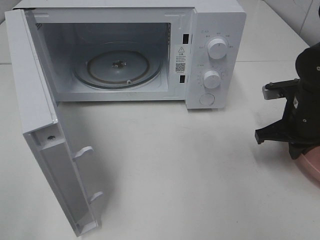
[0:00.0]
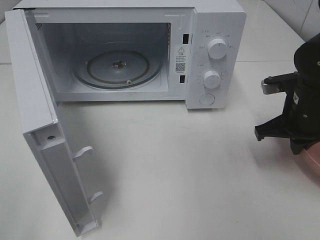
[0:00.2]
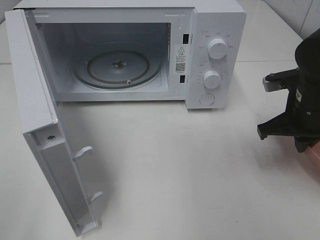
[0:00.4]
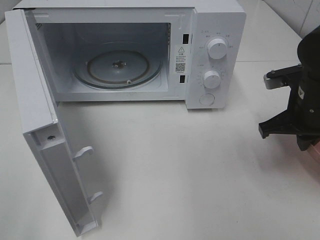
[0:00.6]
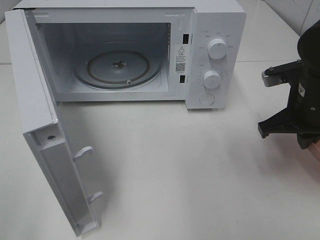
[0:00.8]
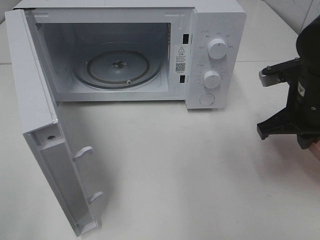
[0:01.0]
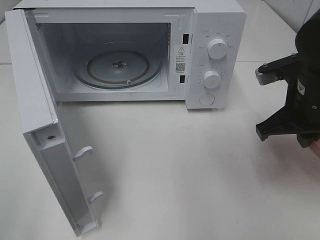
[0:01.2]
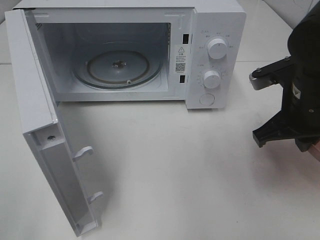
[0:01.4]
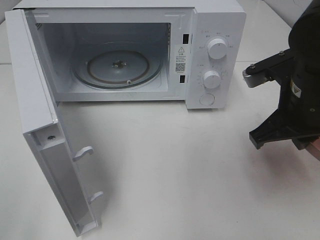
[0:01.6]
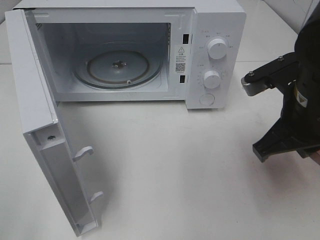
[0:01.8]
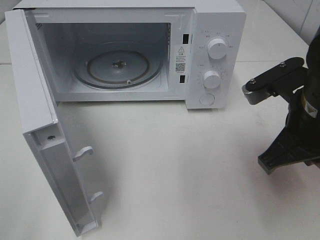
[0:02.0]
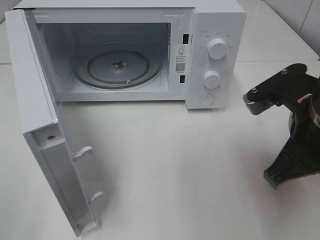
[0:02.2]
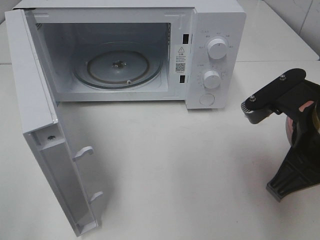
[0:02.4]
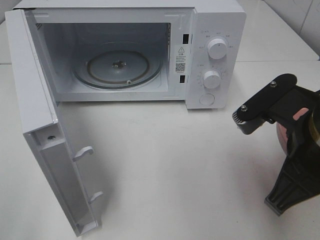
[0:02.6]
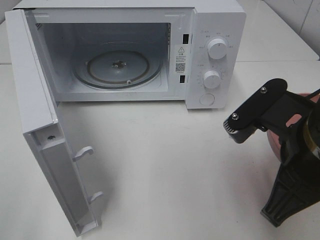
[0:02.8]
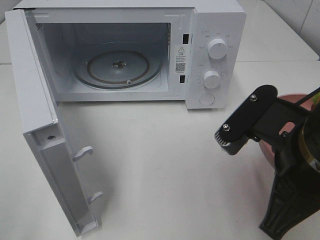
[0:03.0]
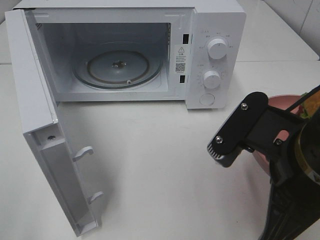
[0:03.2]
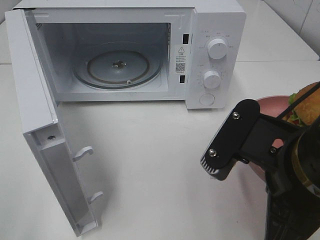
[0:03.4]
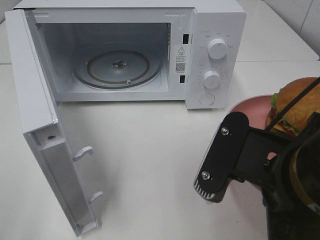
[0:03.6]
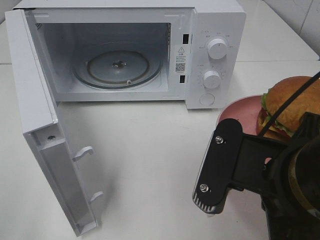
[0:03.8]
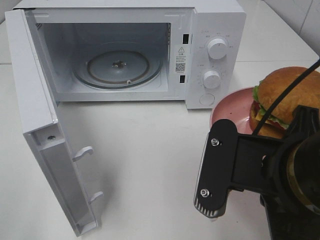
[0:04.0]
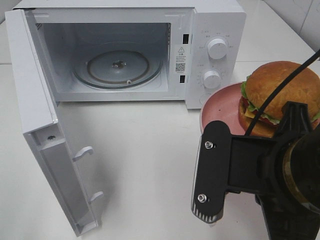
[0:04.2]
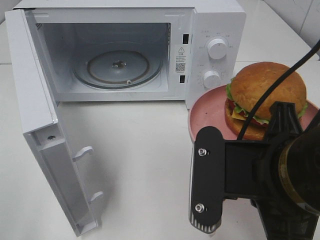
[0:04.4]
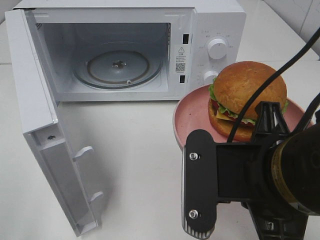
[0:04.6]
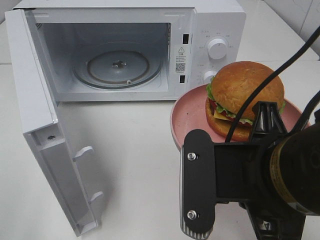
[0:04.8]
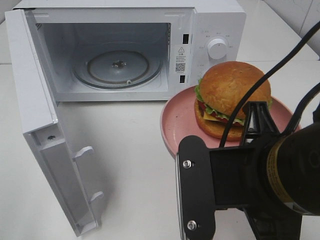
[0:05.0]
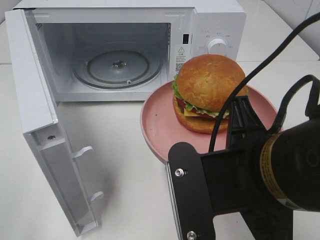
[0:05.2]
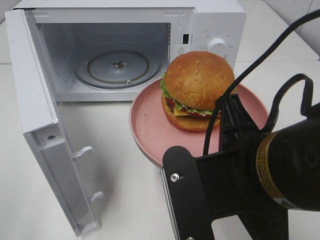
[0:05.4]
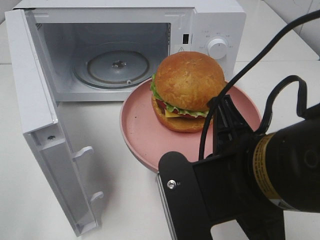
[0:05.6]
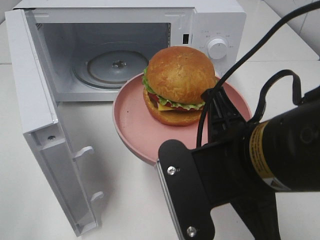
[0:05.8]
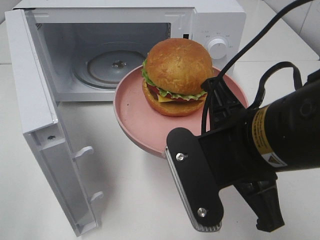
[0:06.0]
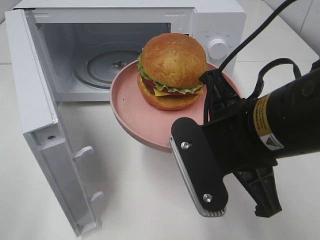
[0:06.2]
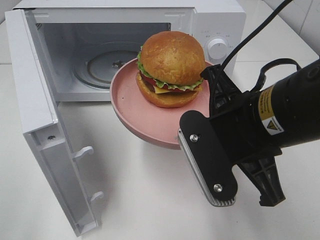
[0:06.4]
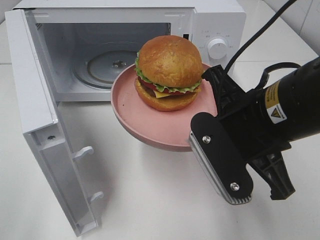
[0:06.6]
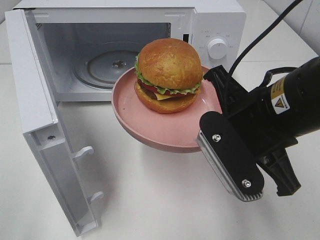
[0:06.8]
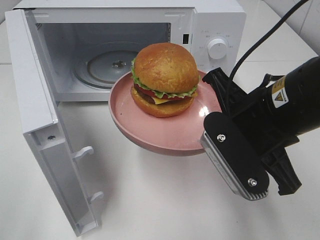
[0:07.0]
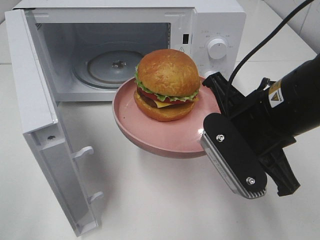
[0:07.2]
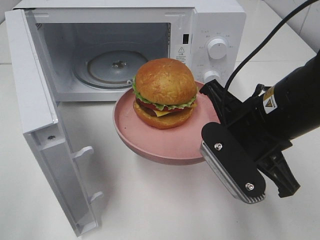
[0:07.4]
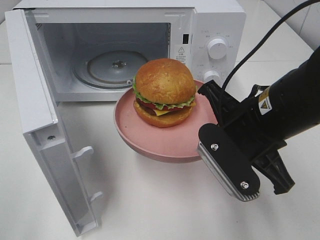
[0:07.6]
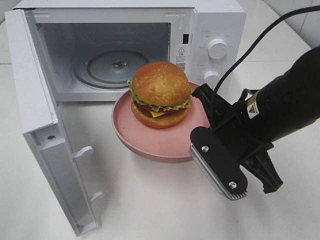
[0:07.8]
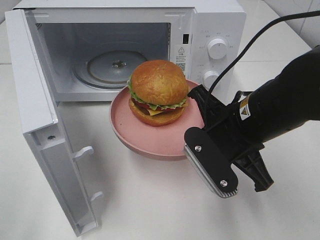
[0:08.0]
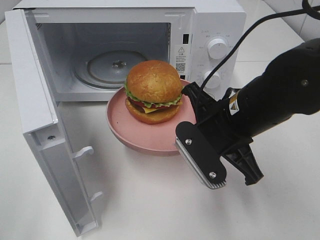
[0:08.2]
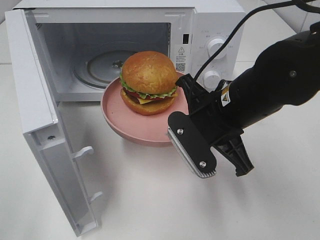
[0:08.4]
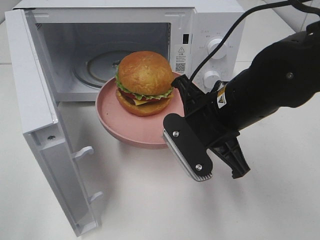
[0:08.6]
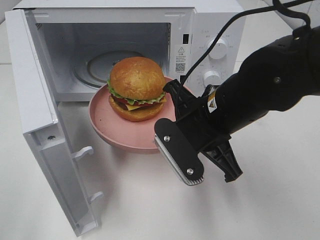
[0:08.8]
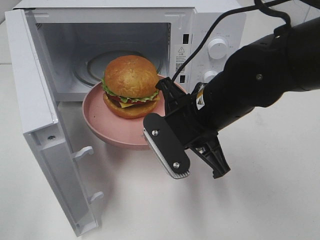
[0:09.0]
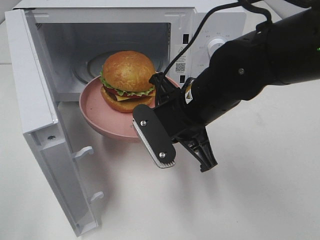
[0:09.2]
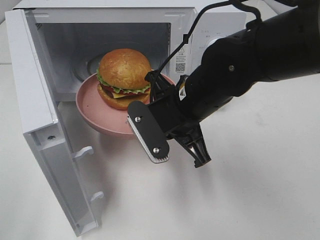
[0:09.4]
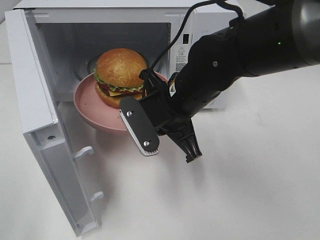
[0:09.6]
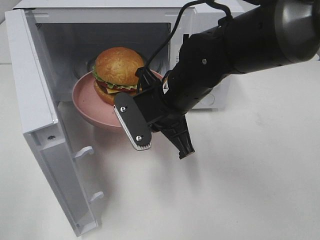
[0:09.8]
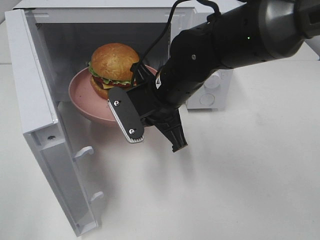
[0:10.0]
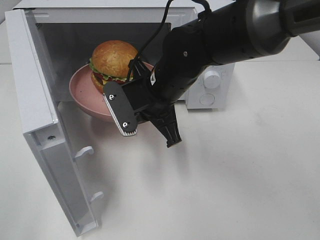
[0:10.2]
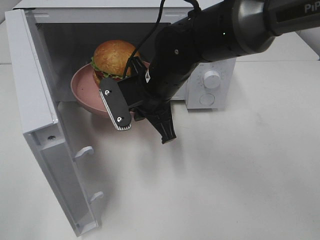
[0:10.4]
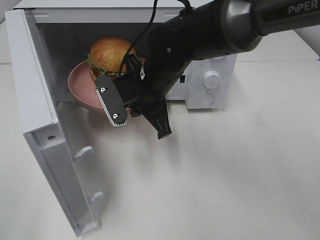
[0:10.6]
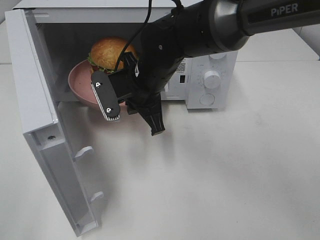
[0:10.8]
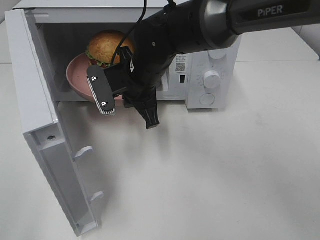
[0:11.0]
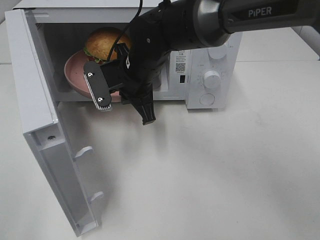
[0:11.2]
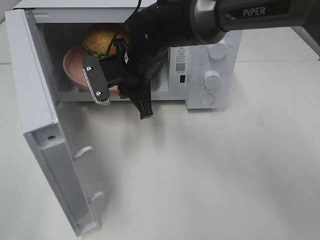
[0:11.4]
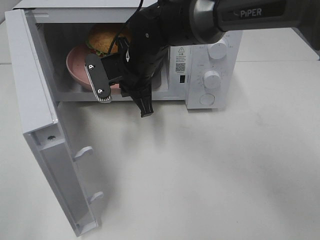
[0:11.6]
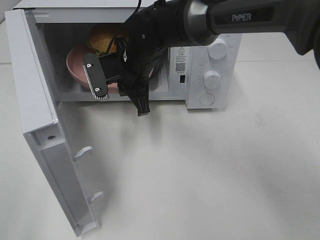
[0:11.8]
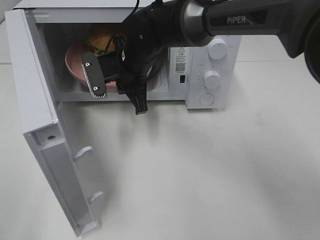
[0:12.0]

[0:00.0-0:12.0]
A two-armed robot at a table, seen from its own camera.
Task of the whole recording: Heat the burger.
0:00.0 to 0:01.6: The right gripper is displaced upward, to the left and backward by approximately 15 cm.
0:01.6 to 0:03.0: The right gripper goes about 10 cm backward.
0:06.0 to 0:07.6: The right gripper goes approximately 5 cm forward.
0:07.6 to 0:09.0: The right gripper shifts roughly 5 cm to the left.
0:09.0 to 0:10.4: The right gripper moves forward and to the left, some 10 cm.
0:10.4 to 0:12.0: The right gripper travels forward by approximately 5 cm.

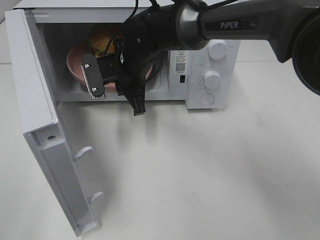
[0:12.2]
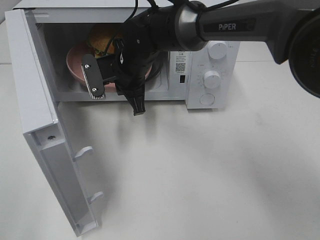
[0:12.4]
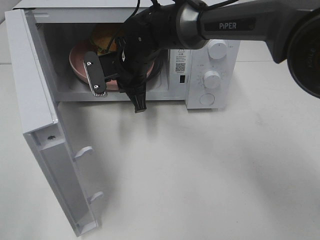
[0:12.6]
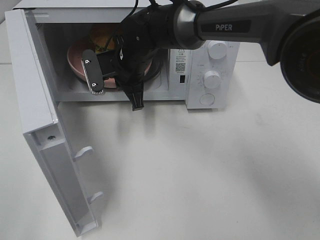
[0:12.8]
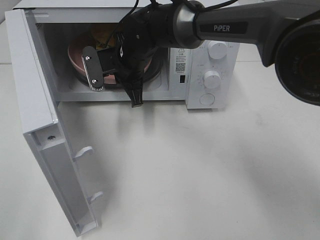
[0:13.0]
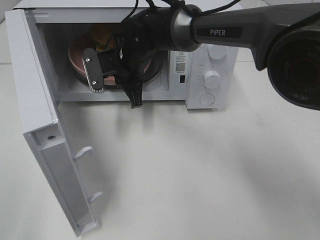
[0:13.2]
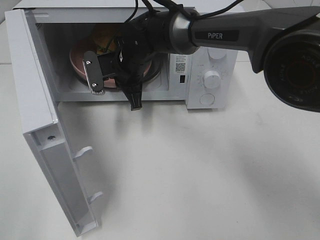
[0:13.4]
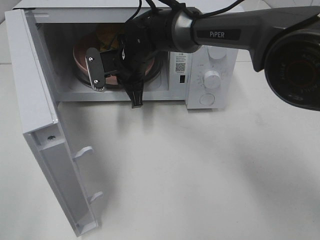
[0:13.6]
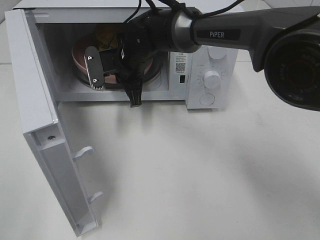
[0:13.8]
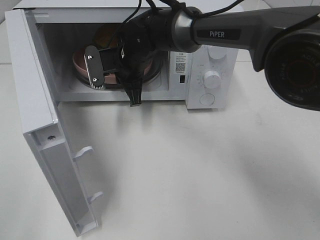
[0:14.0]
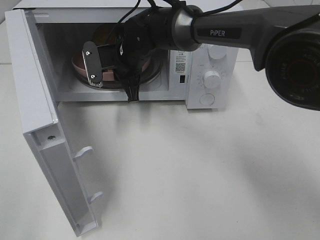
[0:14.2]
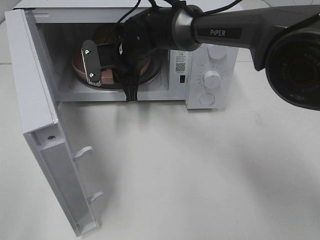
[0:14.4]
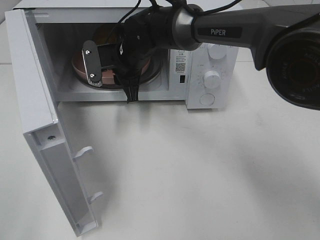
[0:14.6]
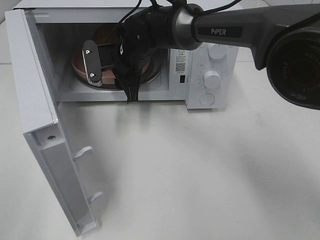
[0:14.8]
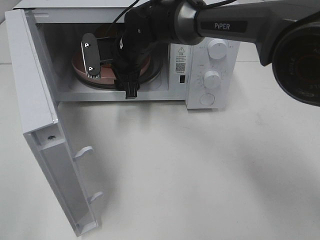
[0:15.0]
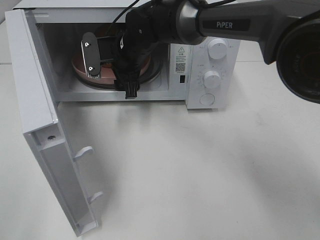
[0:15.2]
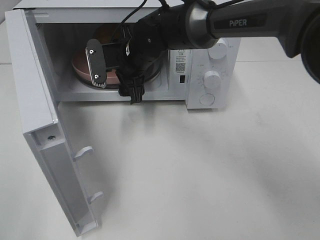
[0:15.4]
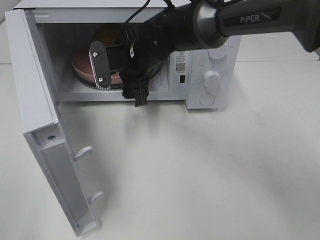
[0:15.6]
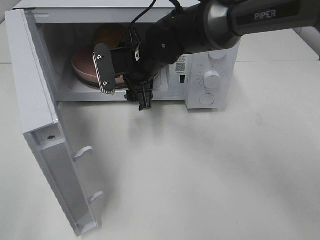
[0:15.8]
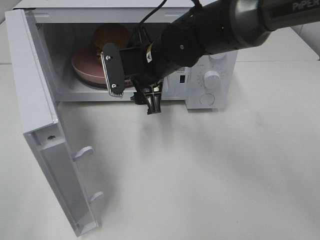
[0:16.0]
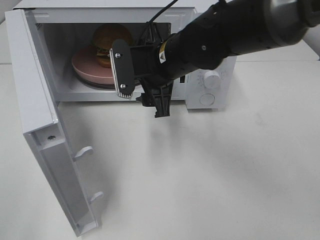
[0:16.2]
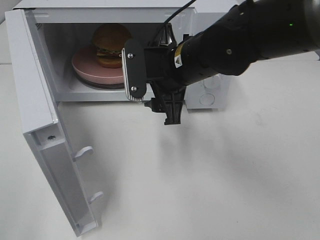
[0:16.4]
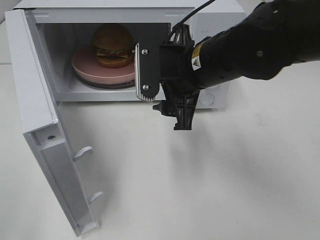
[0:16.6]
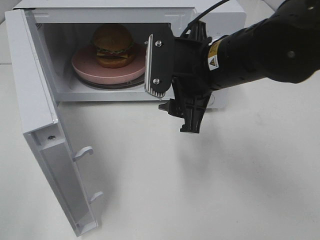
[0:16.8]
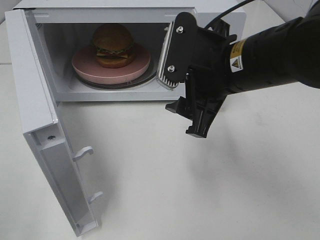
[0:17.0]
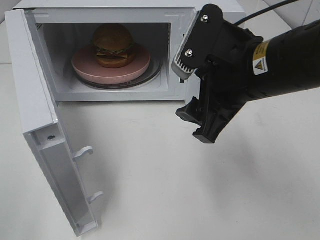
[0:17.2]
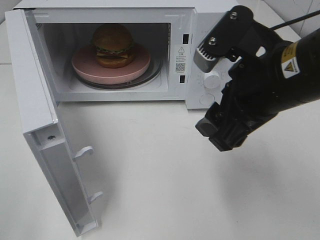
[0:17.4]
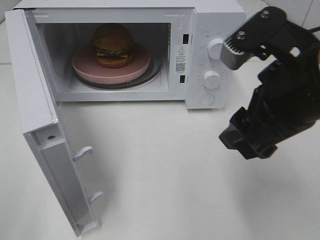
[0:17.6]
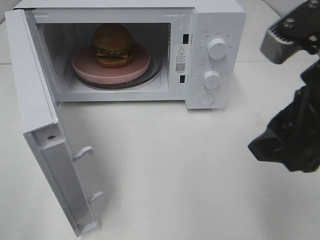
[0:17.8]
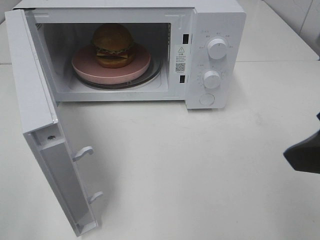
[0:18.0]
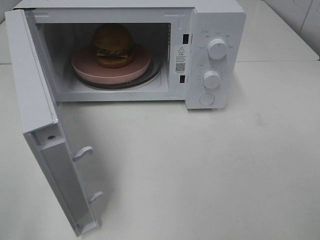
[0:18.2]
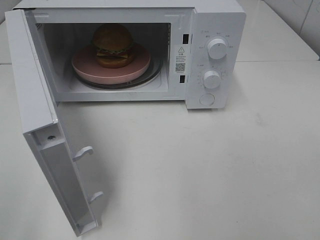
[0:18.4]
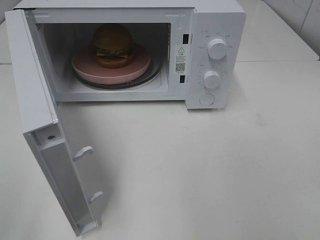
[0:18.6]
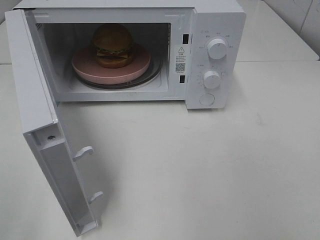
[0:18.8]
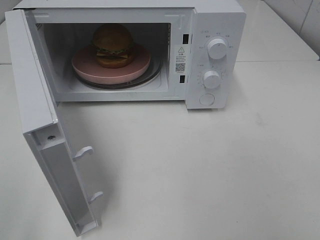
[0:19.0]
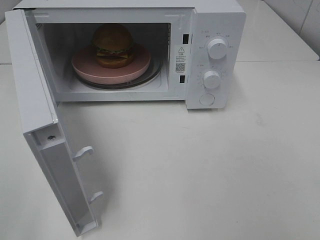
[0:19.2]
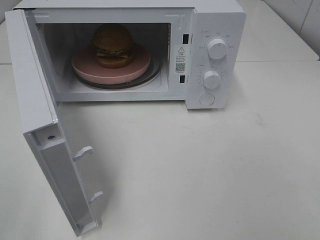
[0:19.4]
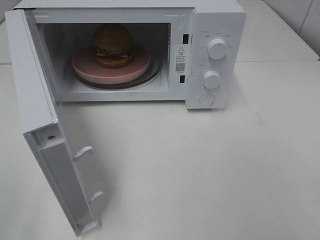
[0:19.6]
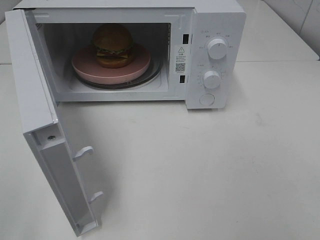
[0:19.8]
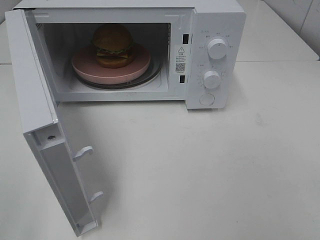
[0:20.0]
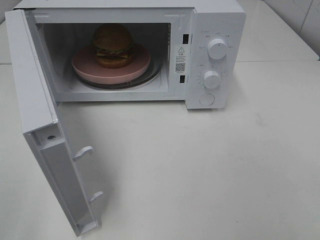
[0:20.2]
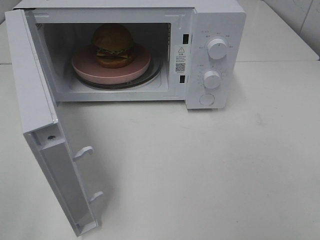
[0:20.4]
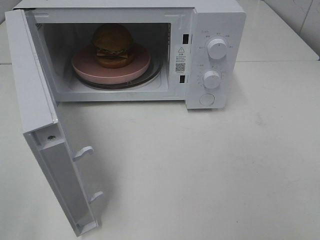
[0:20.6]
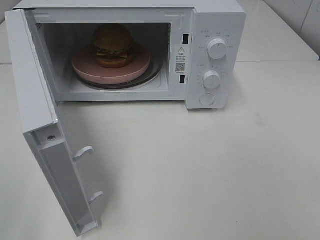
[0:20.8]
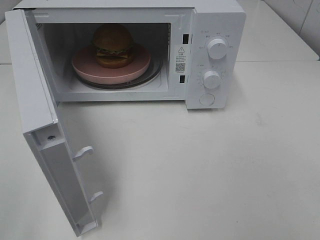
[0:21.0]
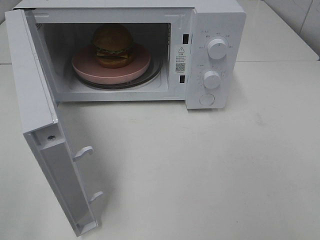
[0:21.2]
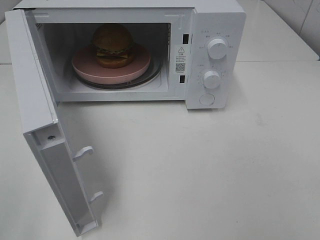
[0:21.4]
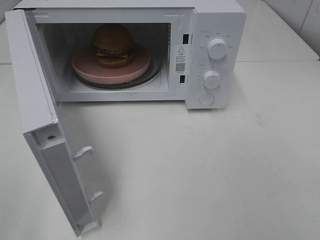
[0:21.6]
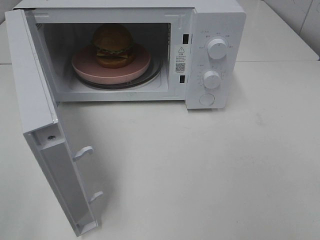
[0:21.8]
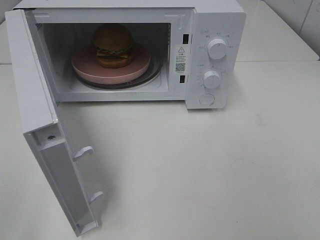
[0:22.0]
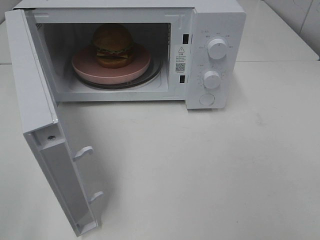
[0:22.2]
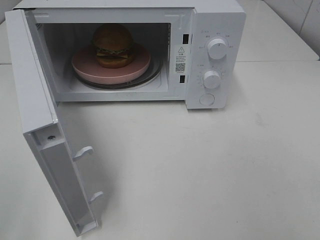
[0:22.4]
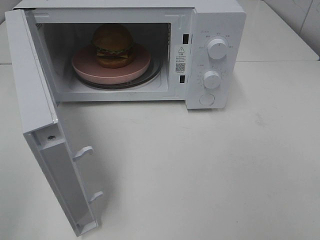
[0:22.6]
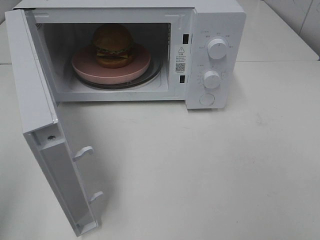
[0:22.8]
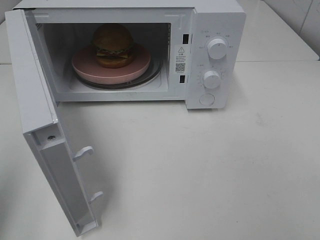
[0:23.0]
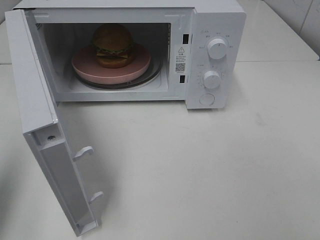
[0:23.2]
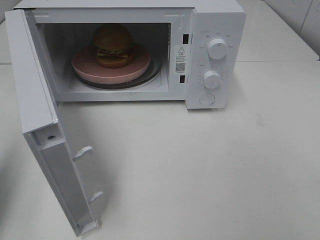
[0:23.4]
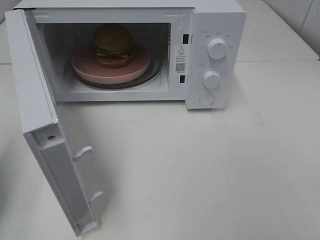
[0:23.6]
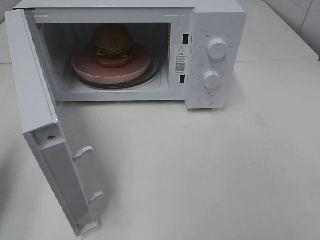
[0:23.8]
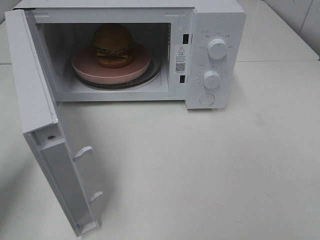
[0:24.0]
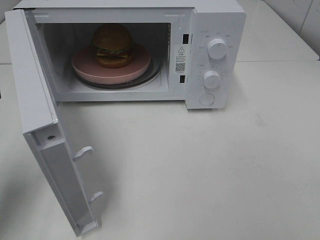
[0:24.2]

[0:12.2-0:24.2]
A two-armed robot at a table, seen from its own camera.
Task of the whole recording: Heat the burger.
Step, 0:12.2 to 0:14.4: Right hand: place the plate in the microwave.
0:12.2 to 0:13.8: The grippers move only a little.
0:13.8 to 0:15.2: The right gripper opens.
0:15.2 to 0:16.6: The right gripper is displaced backward and to the right by some 20 cm.
0:16.6 to 0:18.2: The right gripper heads backward, to the right and upward, covering about 25 cm.
0:19.8 to 0:21.2: Neither gripper changes place.
0:22.6 to 0:24.2: The left gripper is displaced forward and downward by about 20 cm, and closes up.
